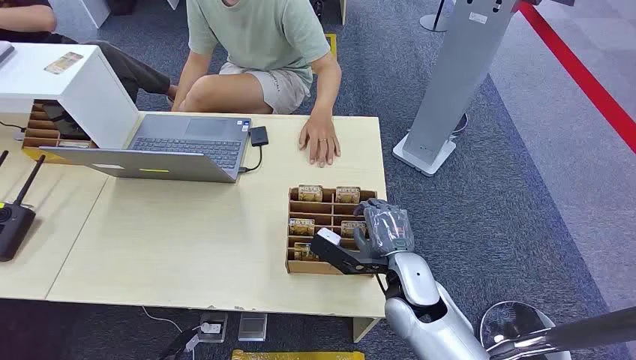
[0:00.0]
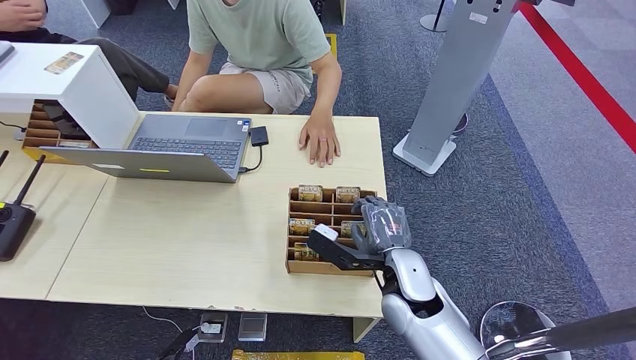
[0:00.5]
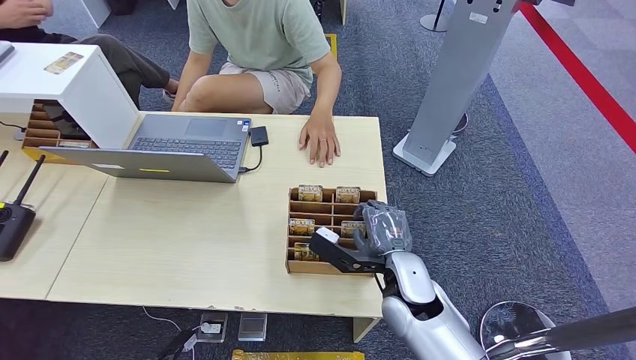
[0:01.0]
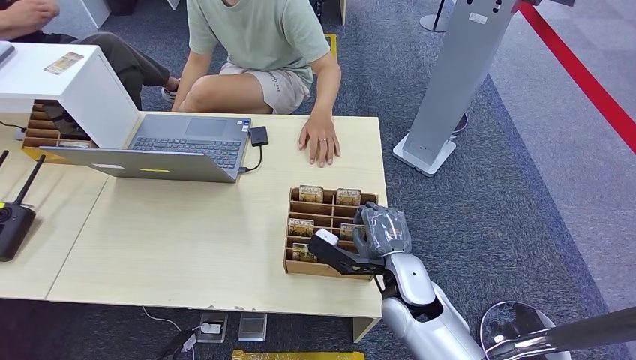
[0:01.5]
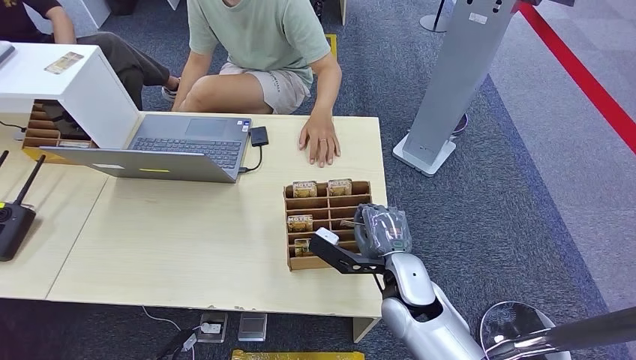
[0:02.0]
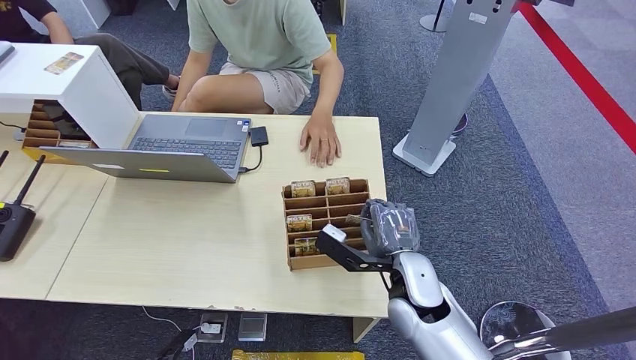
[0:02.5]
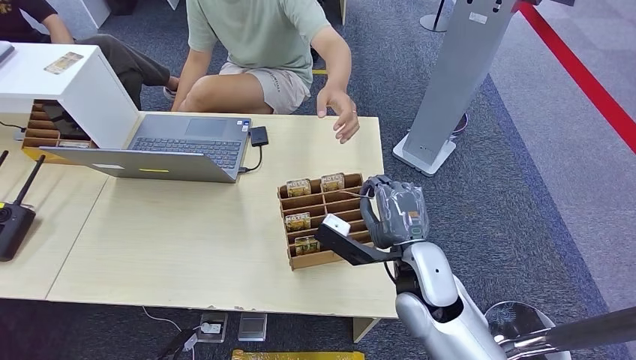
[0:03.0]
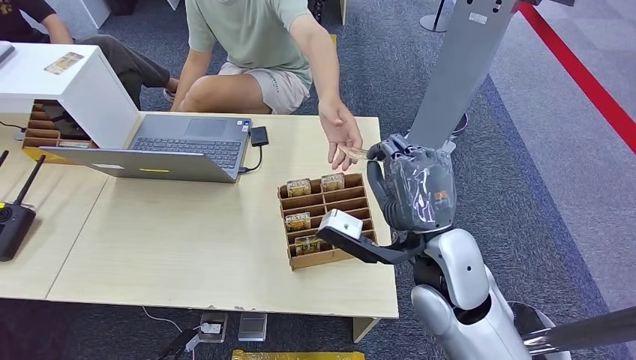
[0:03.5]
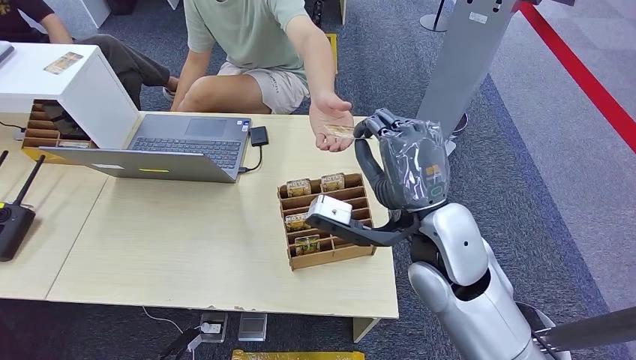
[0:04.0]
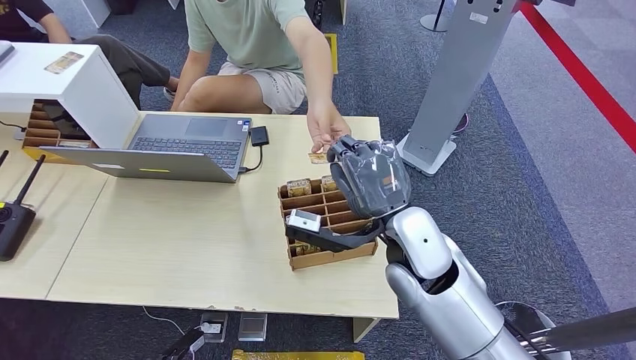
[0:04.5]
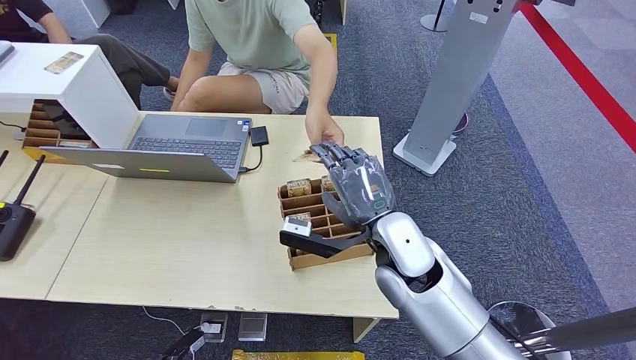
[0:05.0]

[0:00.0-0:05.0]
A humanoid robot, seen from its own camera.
Step, 0:00.0 to 0:03.0: Pick up the room card from the card holder.
Step, 0:04.0 to 0:05.0: Hand the room card to the target.
0:02.5 to 0:05.0: The right hand heads upward, covering about 10 cm.

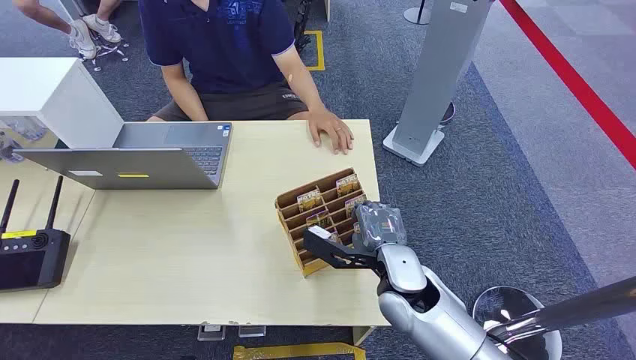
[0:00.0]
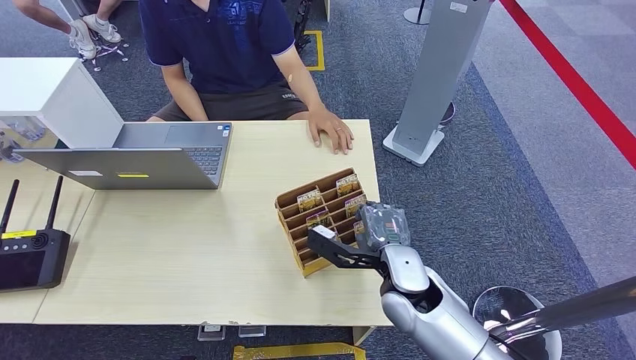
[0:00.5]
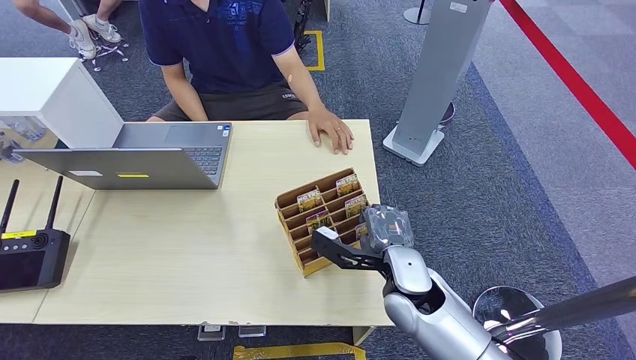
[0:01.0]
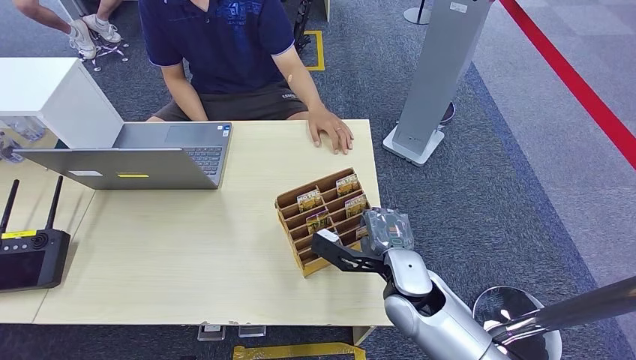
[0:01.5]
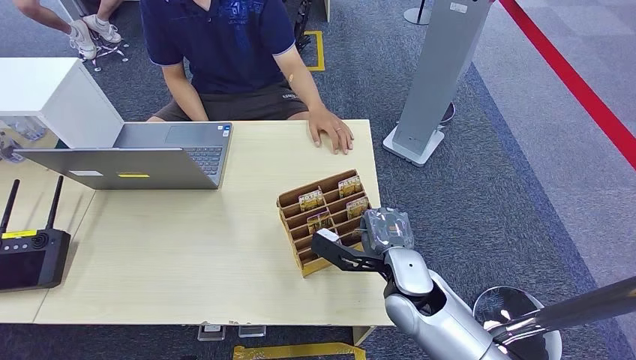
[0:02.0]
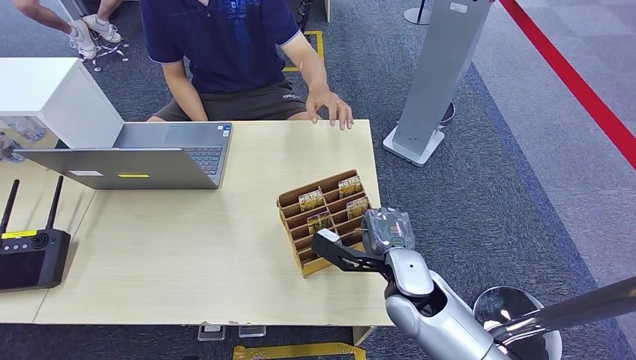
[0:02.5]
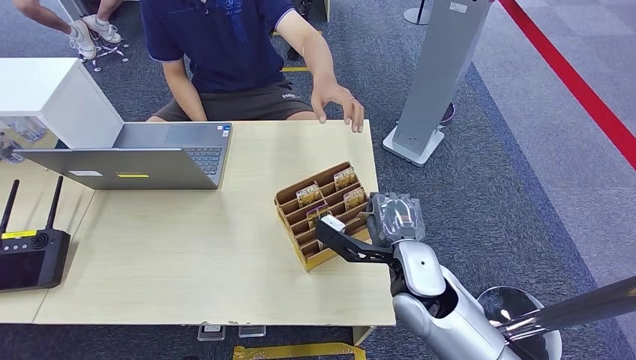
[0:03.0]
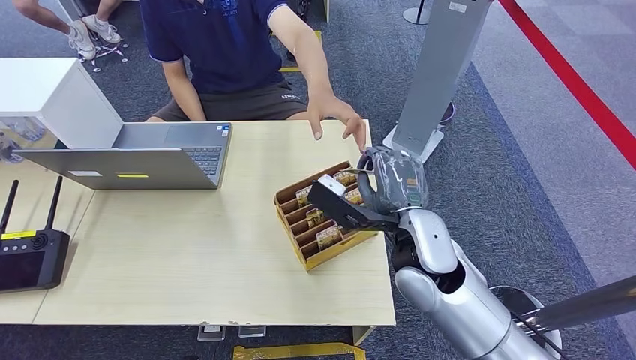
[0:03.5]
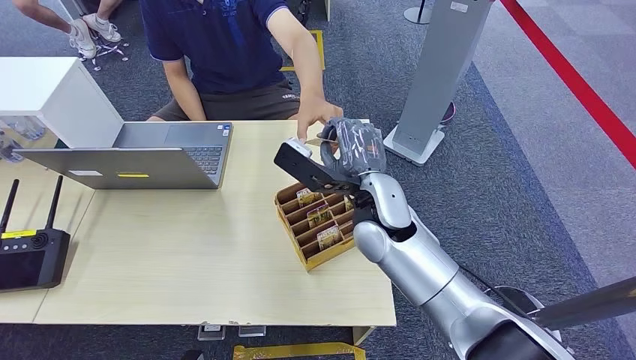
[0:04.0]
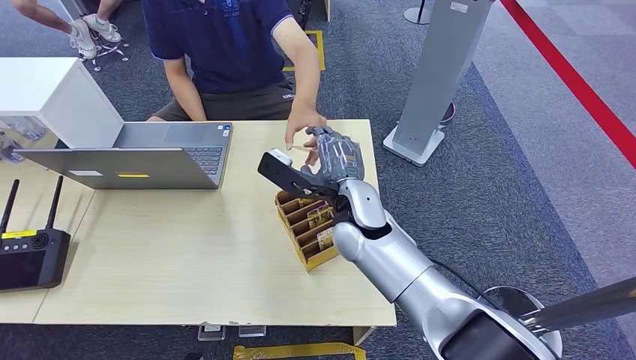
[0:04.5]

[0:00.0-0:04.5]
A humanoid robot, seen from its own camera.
Step, 0:00.0 to 0:02.0: Pick up the room card from the card holder.
Step, 0:03.0 to 0:04.5: Hand the room card to the target.
0:02.0 to 0:04.5: The right hand moves to the left, forward and upward, roughly 15 cm.
